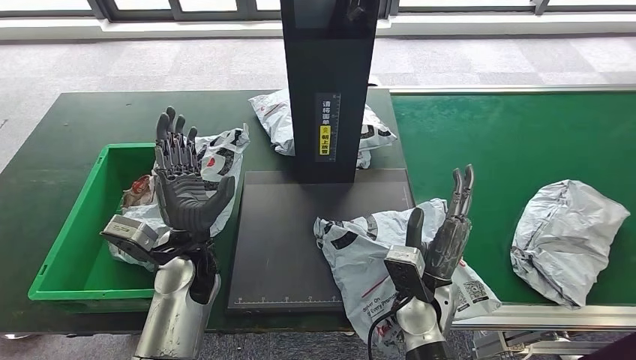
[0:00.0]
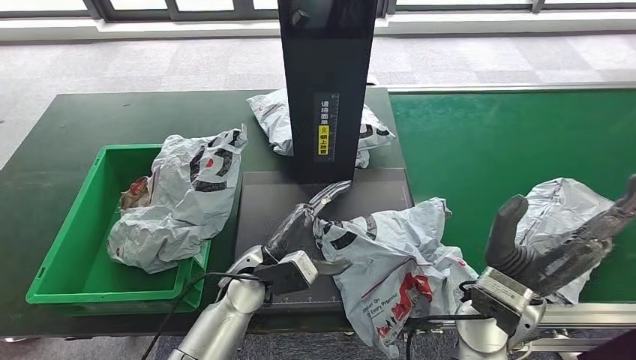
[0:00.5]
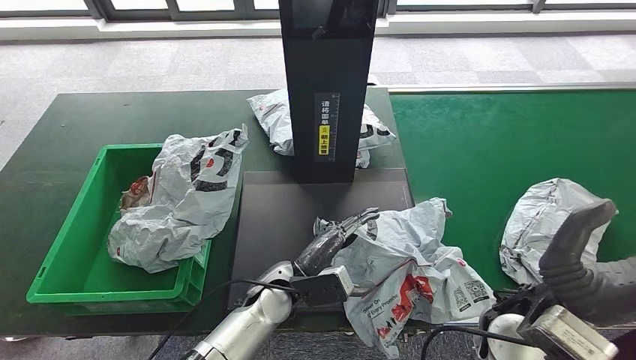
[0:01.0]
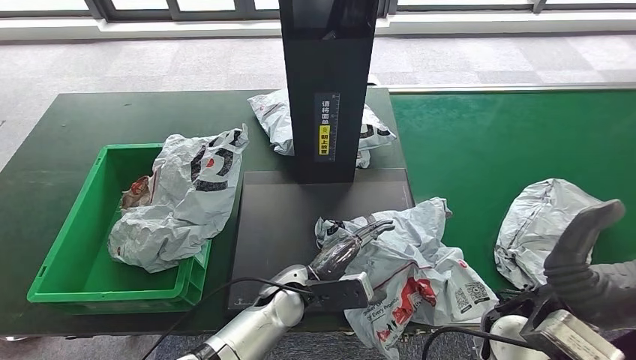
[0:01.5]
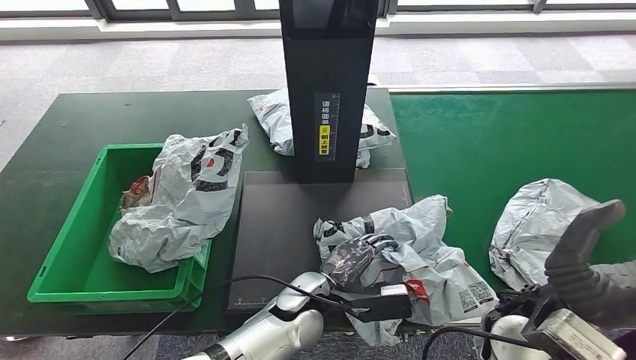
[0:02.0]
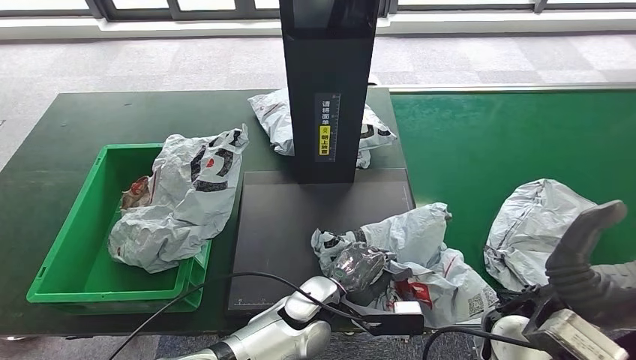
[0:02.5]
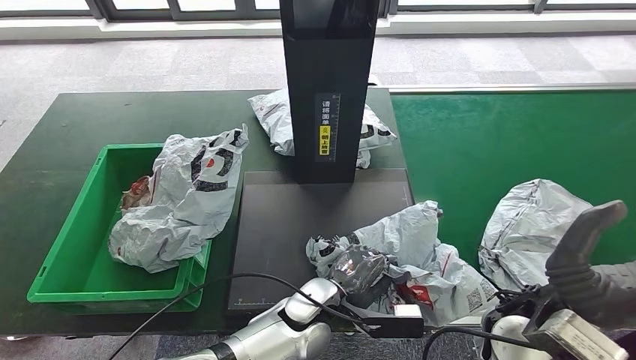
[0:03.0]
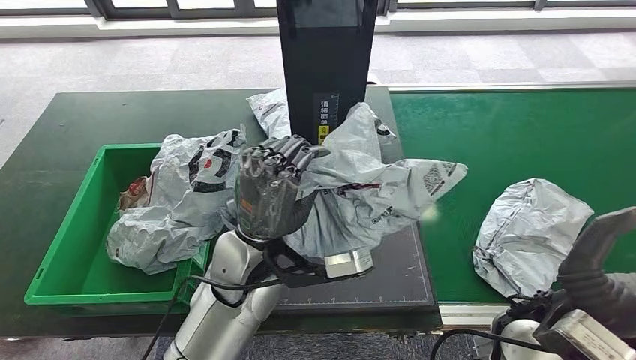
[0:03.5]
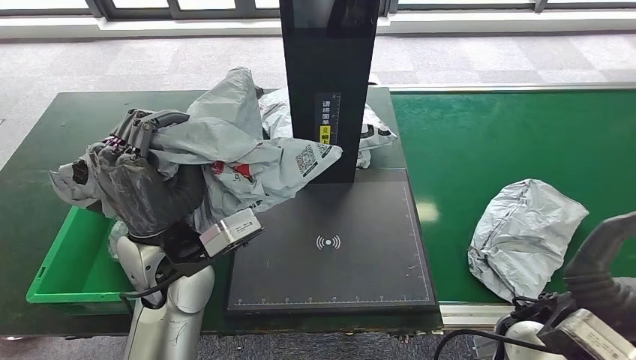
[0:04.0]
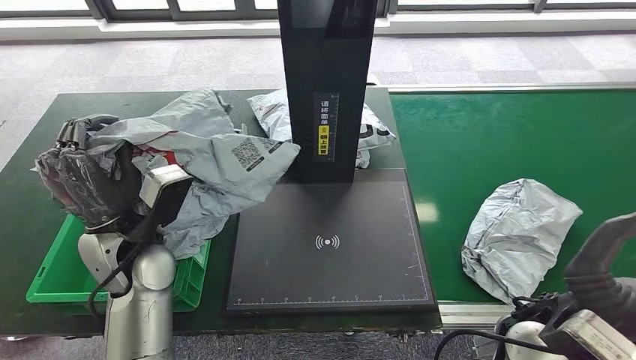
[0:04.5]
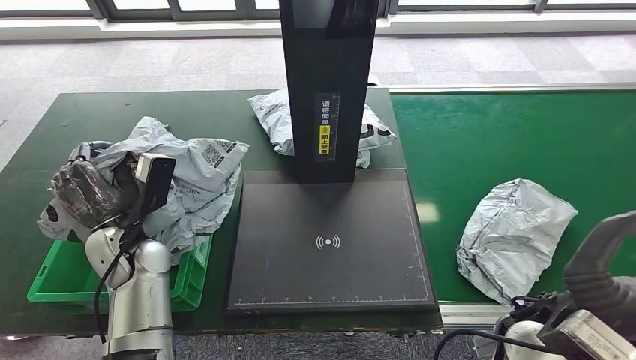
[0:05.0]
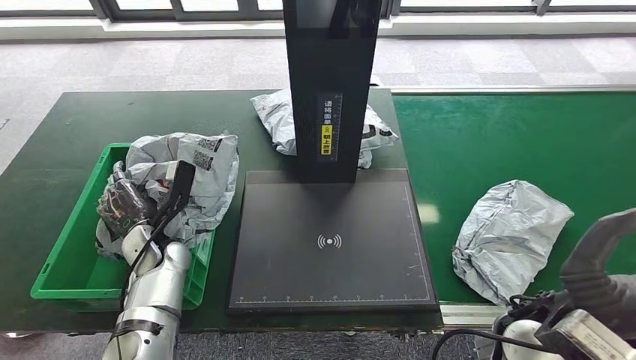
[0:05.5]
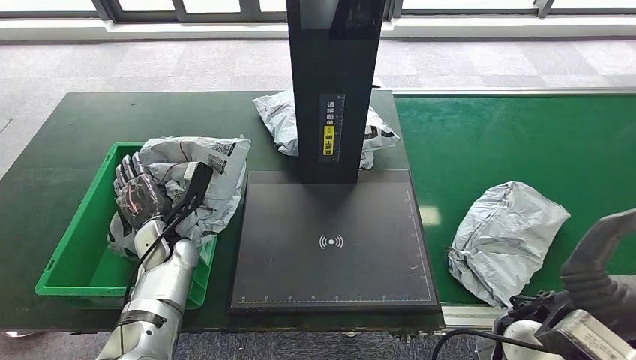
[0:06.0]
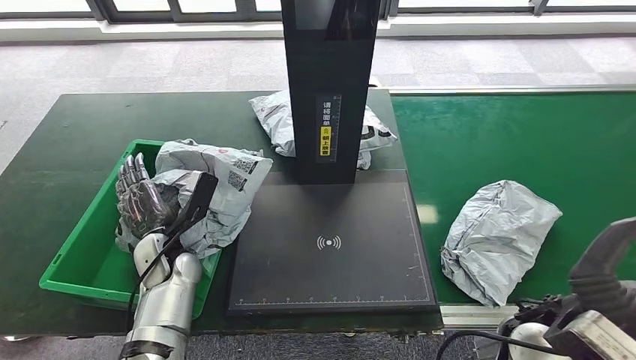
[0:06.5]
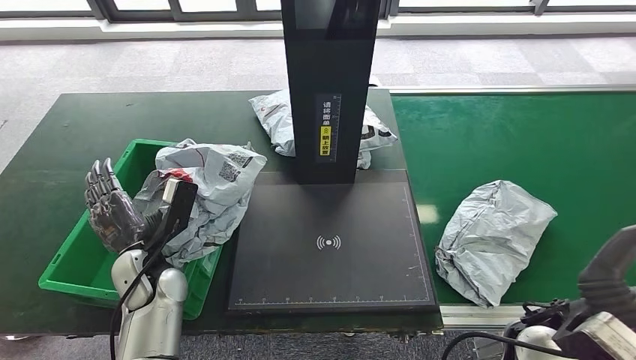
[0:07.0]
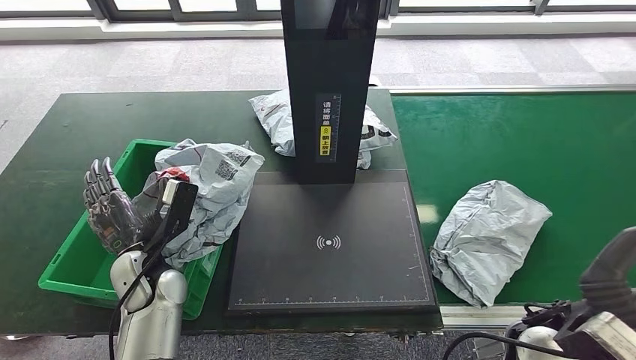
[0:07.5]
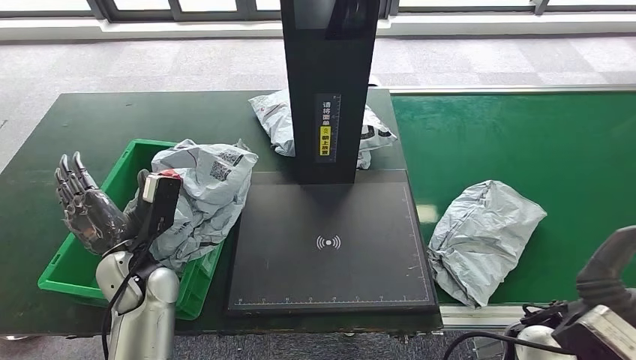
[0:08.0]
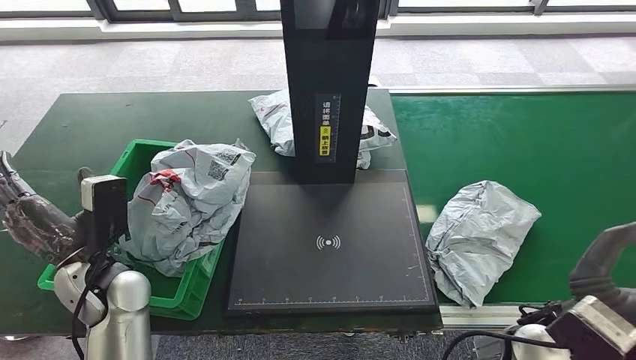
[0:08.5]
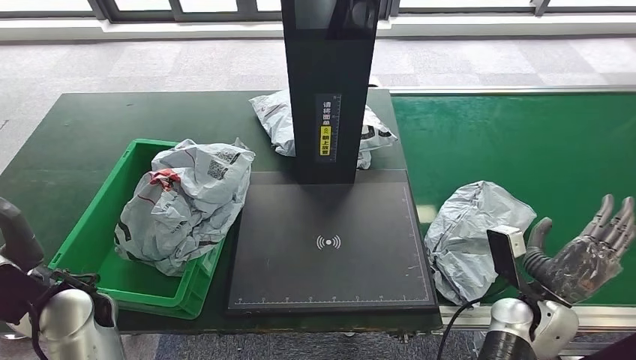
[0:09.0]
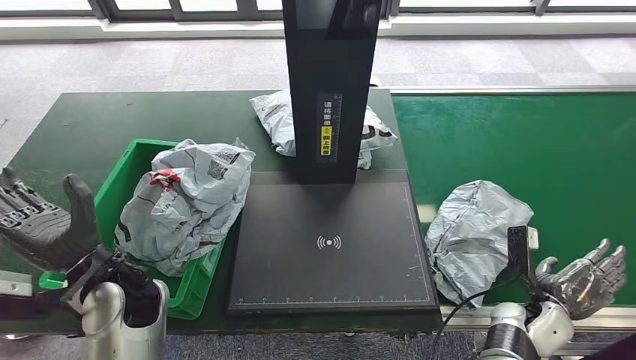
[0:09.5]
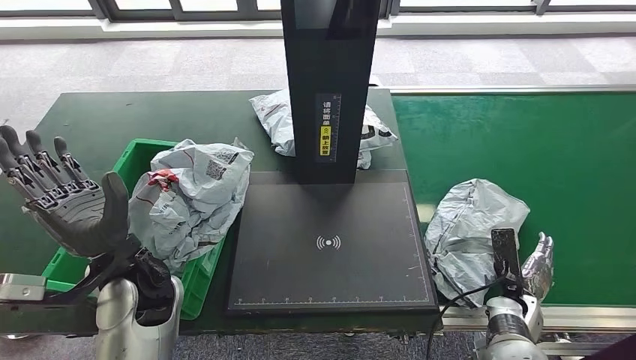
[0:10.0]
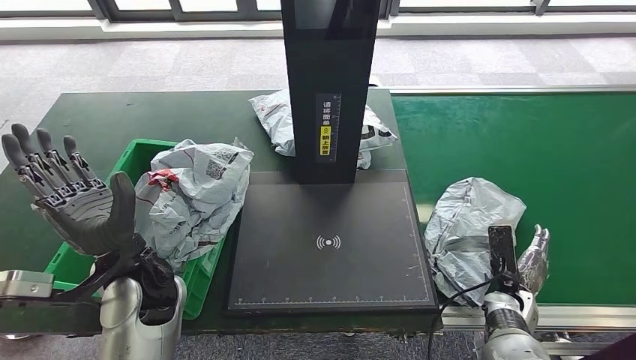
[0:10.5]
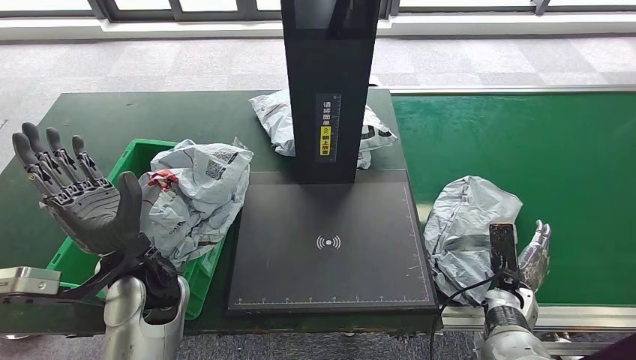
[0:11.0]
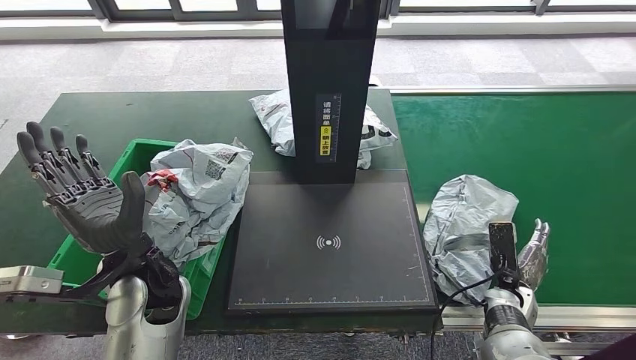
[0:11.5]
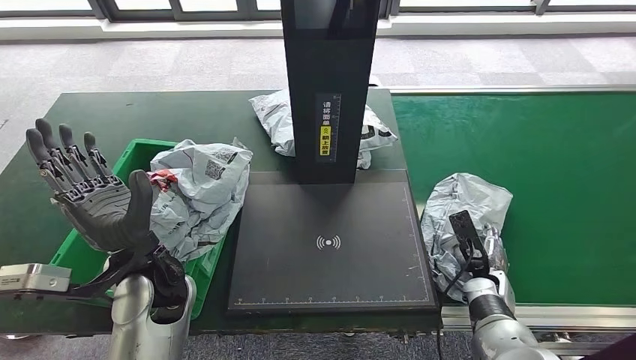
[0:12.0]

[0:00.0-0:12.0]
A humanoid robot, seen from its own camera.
Step, 0:00.5 to 0:03.5: Pick up the parcel from the inbound machine.
Step, 0:04.0 to 0:08.0: Place the parcel into the delivery box.
0:08.0 to 0:10.0: The left hand is displaced upward by approximately 5 cm, and moves approximately 5 cm to the left and comes back; the right hand heads downward, covering roughly 20 cm.
0:10.0 to 0:12.0: The right hand moves roughly 5 cm.

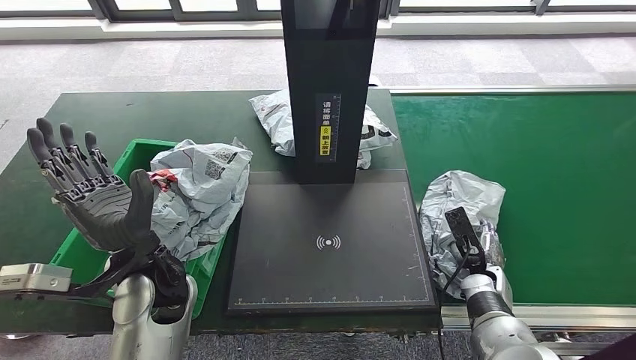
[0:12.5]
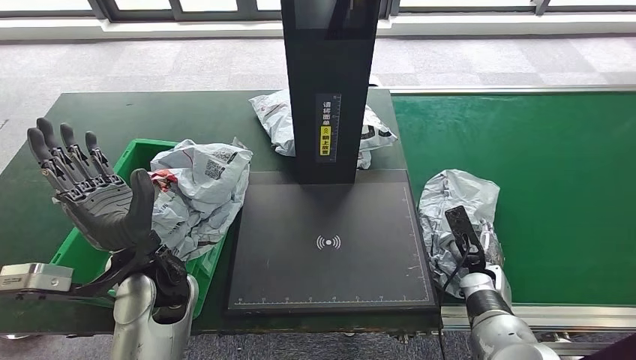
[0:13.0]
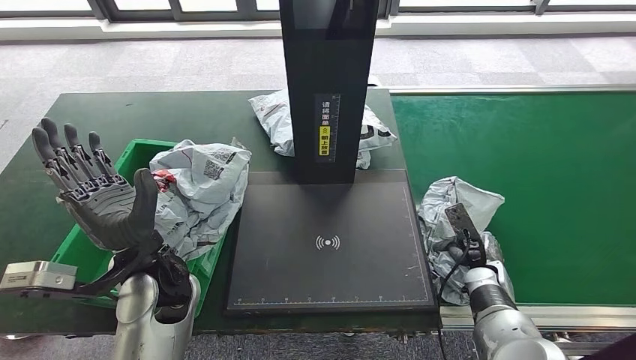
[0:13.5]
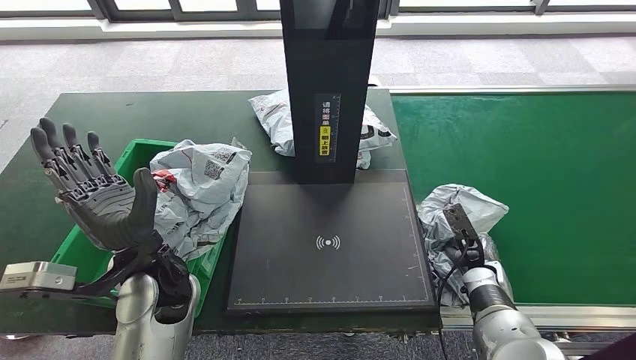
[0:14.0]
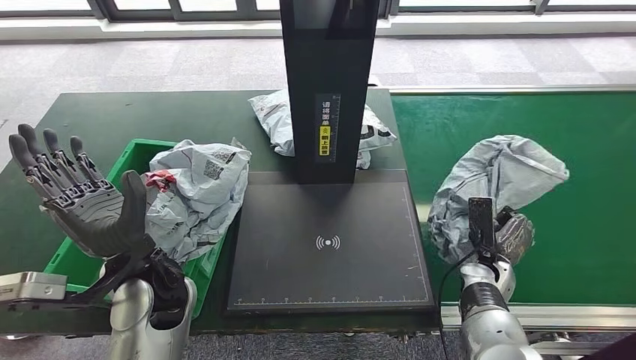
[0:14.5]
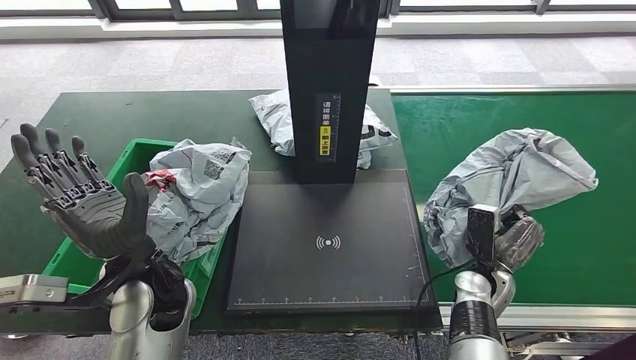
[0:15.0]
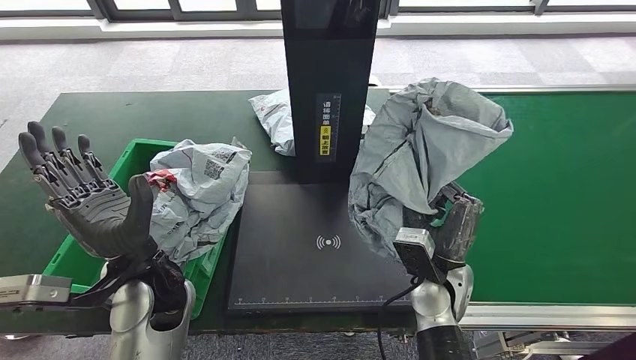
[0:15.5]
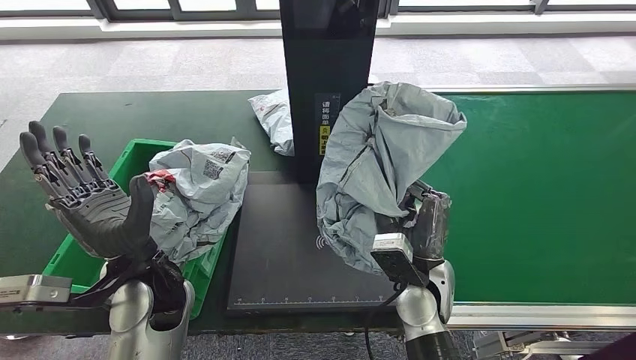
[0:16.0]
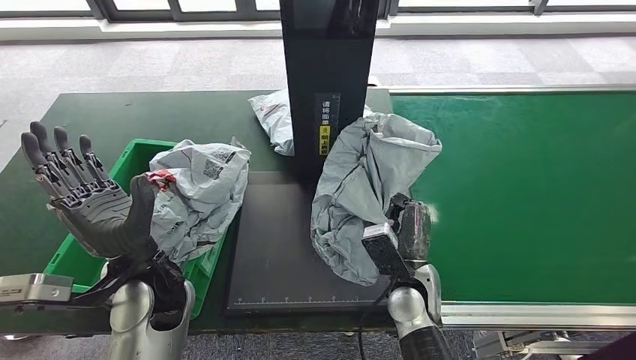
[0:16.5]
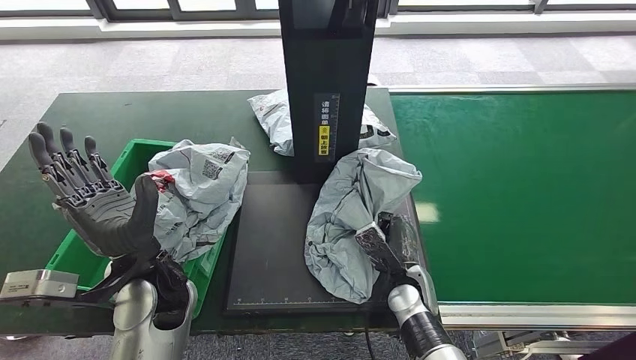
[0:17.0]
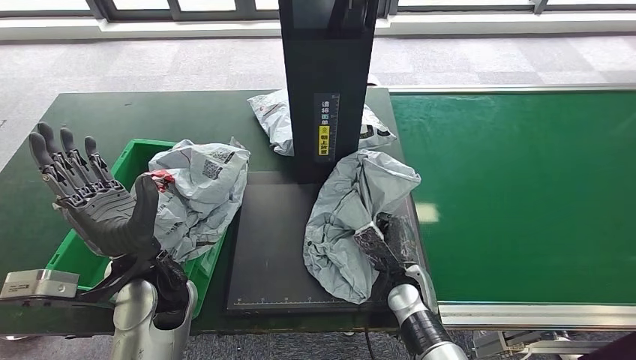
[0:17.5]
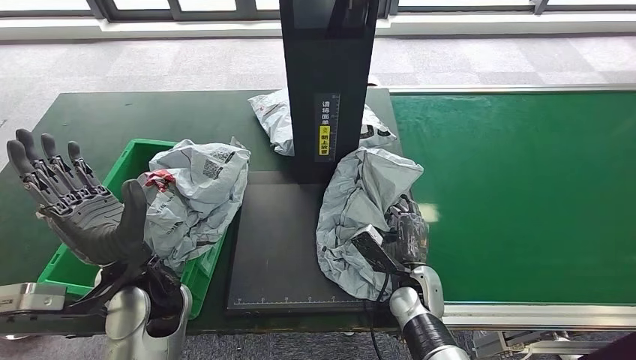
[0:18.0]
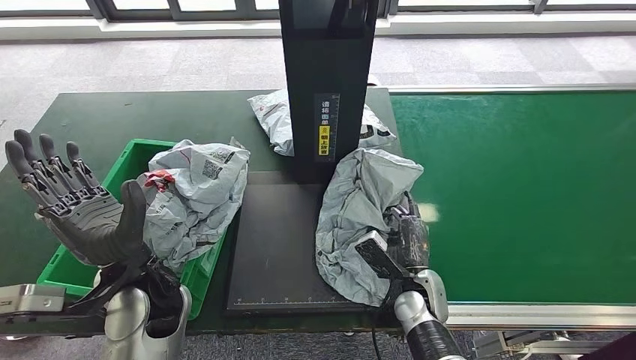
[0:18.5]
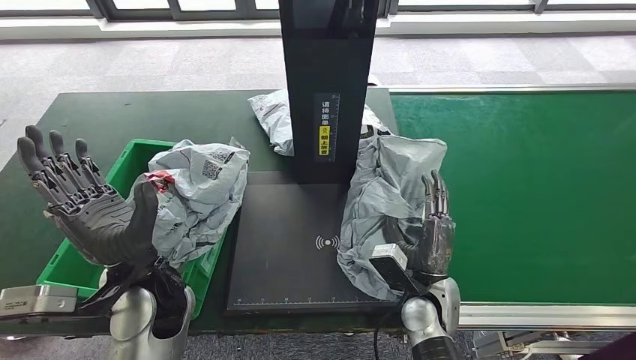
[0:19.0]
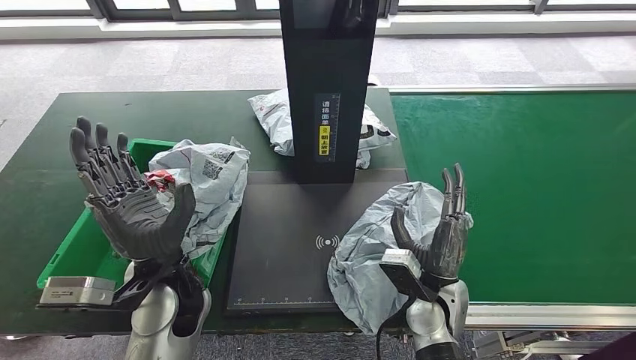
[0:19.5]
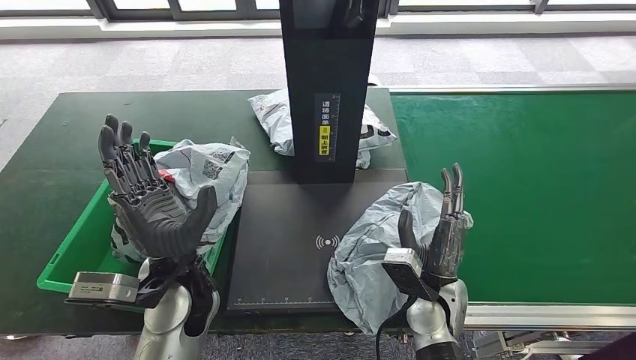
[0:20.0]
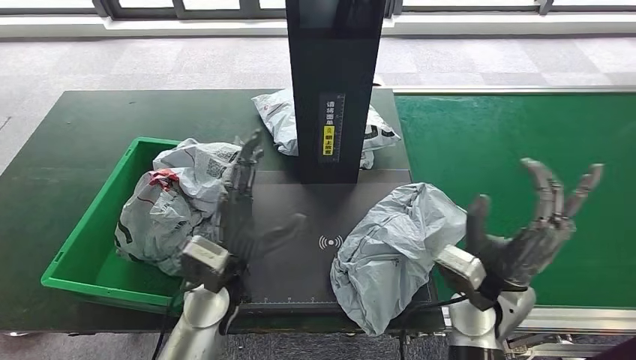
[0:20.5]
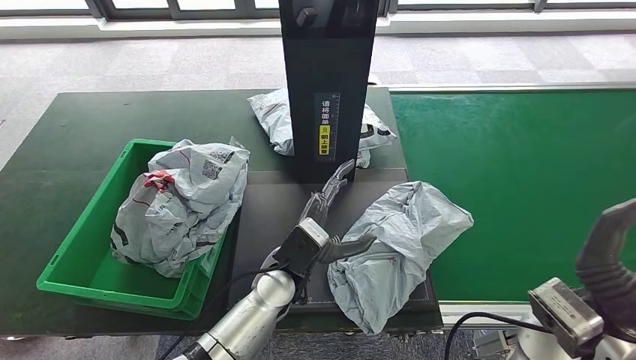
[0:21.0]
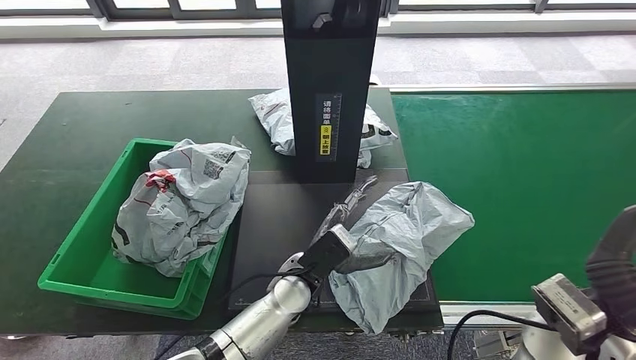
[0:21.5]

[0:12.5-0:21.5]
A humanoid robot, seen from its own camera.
Step, 0:12.5 to 0:15.0: Pick up the parcel from the conveyor belt.
Step, 0:15.5 to 0:20.5: Place the parcel onto the inbound machine.
0:17.0 to 0:19.5: The right hand is displaced upward by approximately 5 cm.
